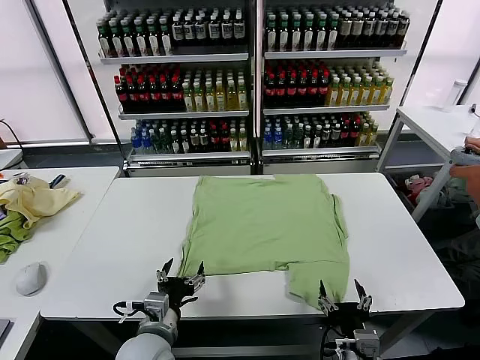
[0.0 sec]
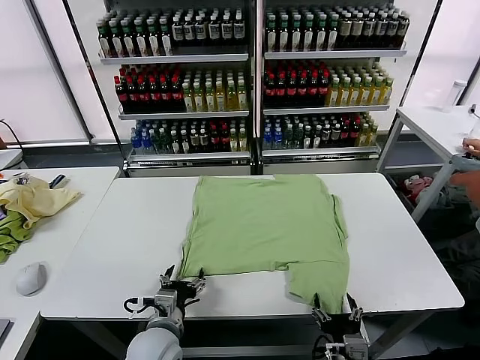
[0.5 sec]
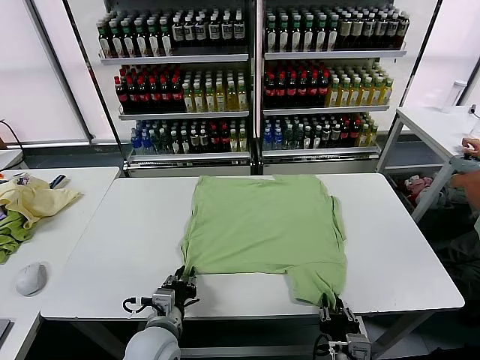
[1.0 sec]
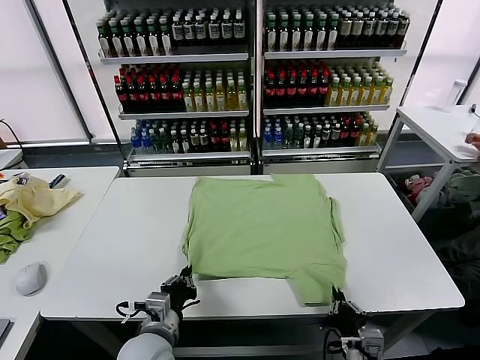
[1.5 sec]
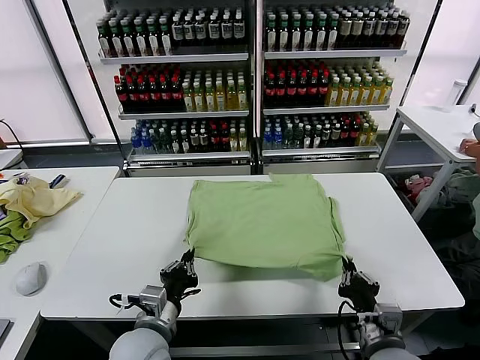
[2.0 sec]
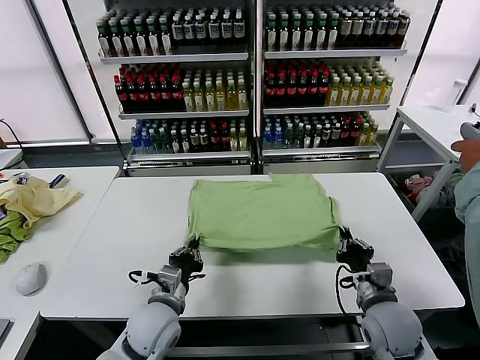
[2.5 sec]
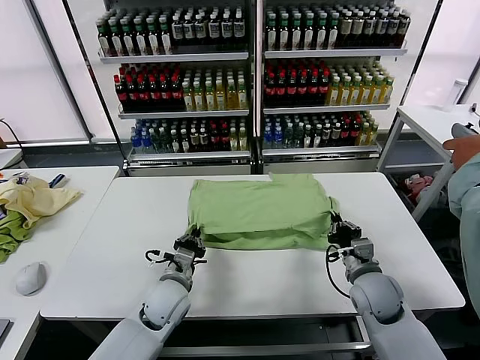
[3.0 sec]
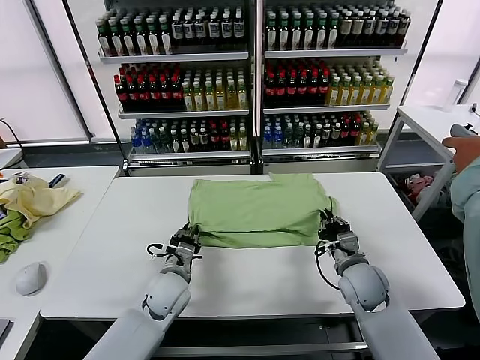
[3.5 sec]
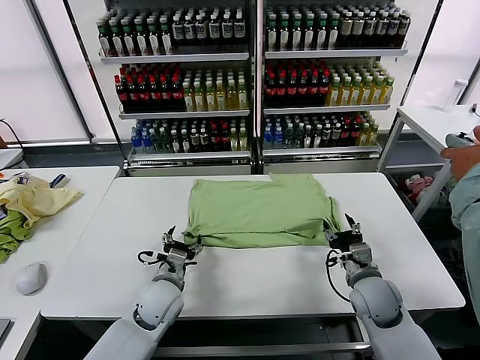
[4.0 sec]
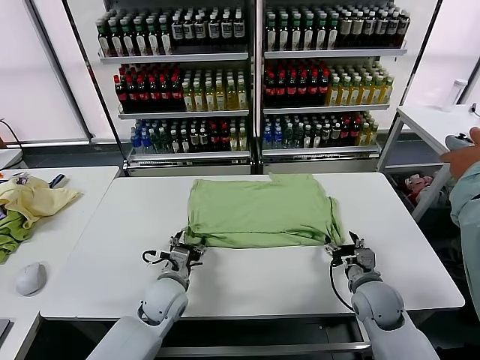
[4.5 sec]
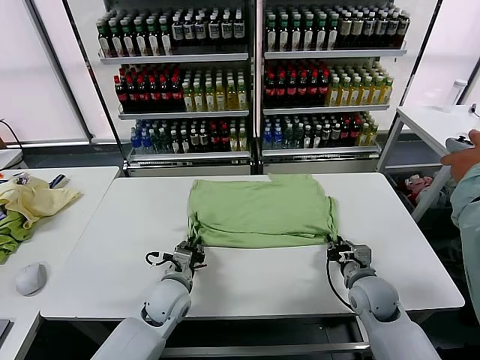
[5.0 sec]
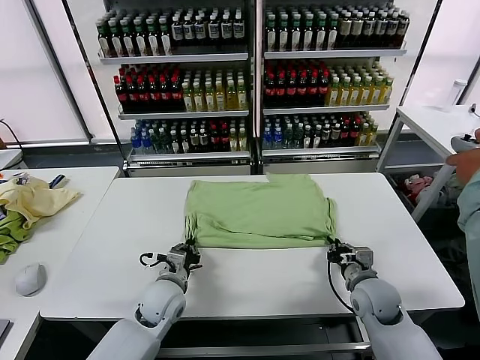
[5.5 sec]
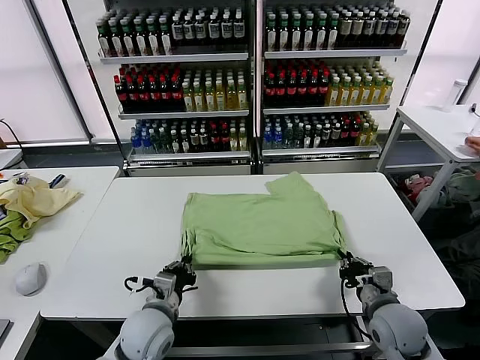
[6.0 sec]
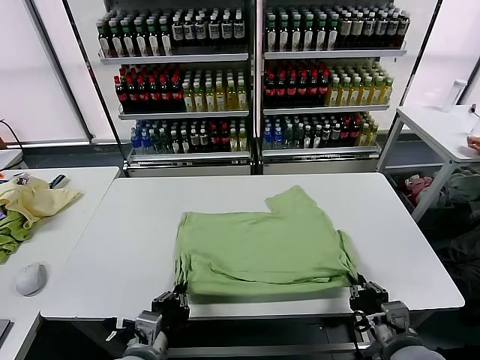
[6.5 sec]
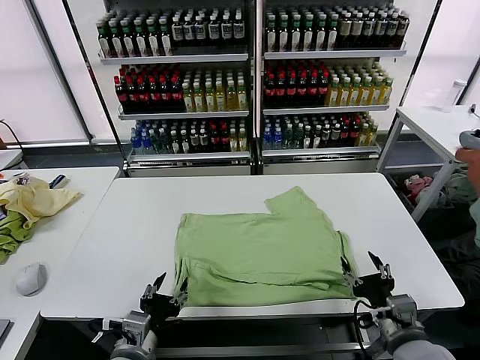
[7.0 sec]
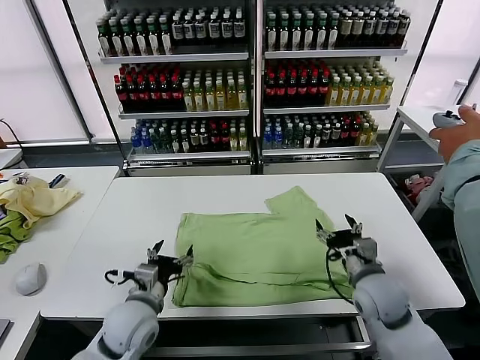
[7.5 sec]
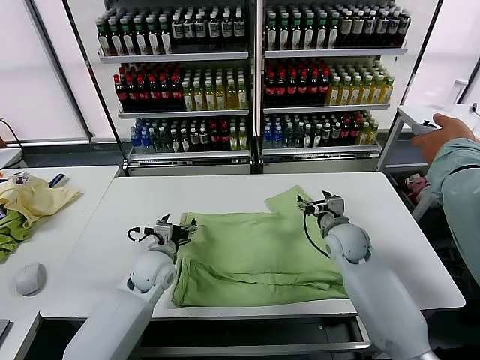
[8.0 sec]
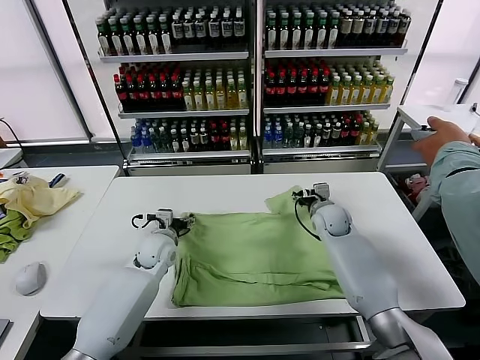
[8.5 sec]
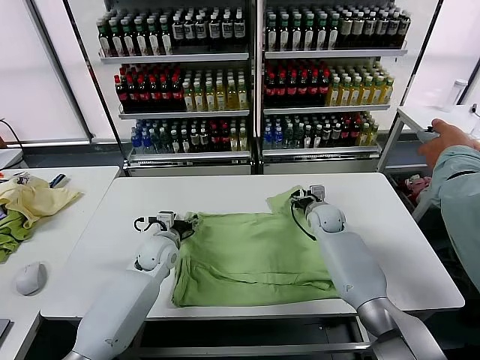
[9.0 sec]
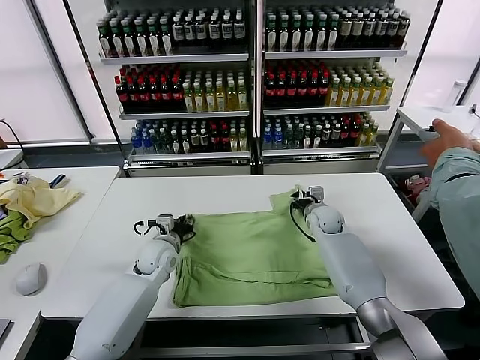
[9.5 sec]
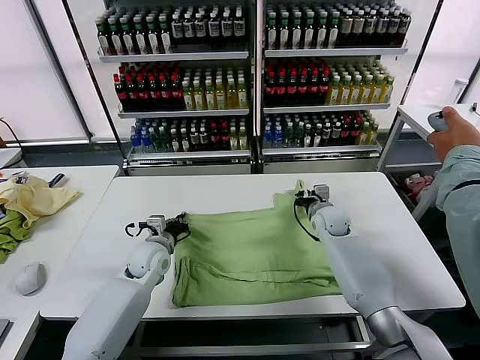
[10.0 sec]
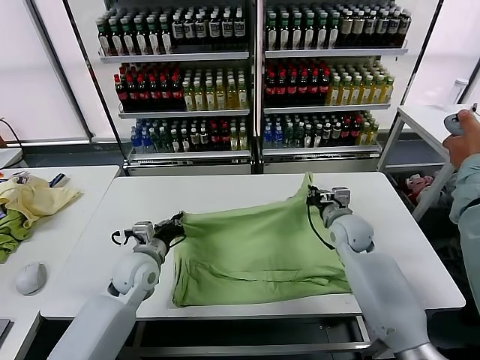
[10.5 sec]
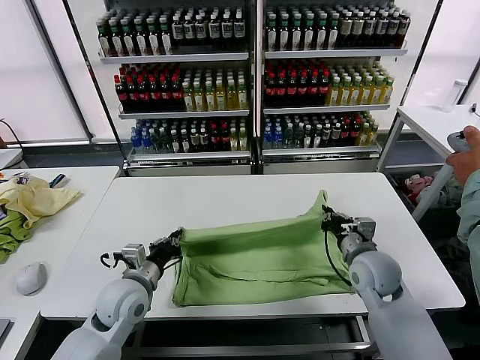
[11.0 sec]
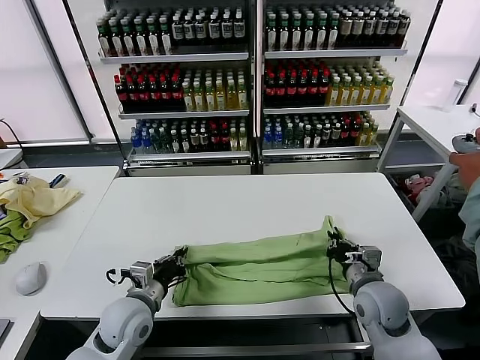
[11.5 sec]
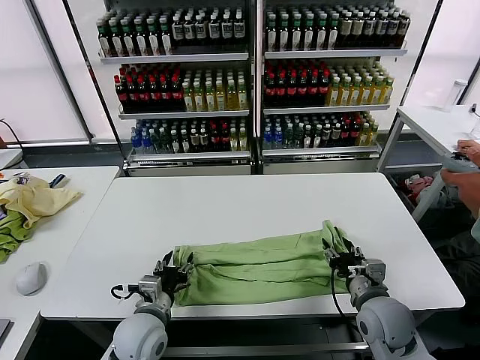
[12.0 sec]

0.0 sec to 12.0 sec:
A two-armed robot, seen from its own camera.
Task of the whole recording: fold and organize the clothes.
Step, 0.0 sec to 1.0 sec: use both grippers simultaneously to clamp the lower edge of the clothing fabric.
Step, 1.5 sec to 3.5 sec: use both grippers to drag the lower edge of the fabric forward and fold it over the upper edge.
Step, 4.5 sec to 6.5 sec: Drag the clothes downward with both gripper.
Step, 7.0 sec to 9.5 sec: use both grippers simultaneously to clamp the upper edge of the clothing fabric.
Step, 10.0 sec to 11.5 sec: use both grippers to drag the upper edge of the fabric backward and fold it over the lower edge.
2.0 sec to 4.0 sec: The right gripper moves forward, about 10 cm, and opens its fingers. The left gripper shifts about 15 cm forward and downward, and opens up.
4.0 sec to 6.0 sec: The grippers both shift backward by some 10 cm. The right gripper closes up. Meanwhile the left gripper closes.
6.0 sec to 8.0 sec: The right gripper is displaced forward by about 25 cm, and opens its fingers. Meanwhile the left gripper moves forward, about 15 cm, and opens up.
8.0 sec to 10.0 sec: The left gripper closes. The right gripper moves forward, about 5 cm, and closes up.
10.0 sec to 12.0 sec: Both grippers move backward, some 20 cm. The left gripper opens, while the right gripper opens up.

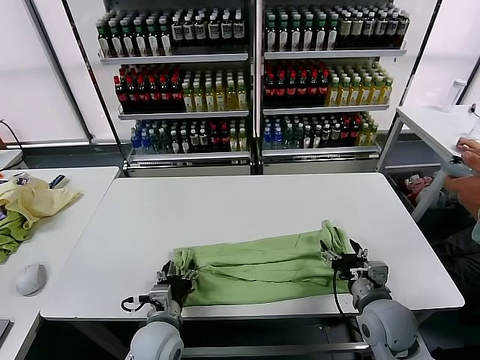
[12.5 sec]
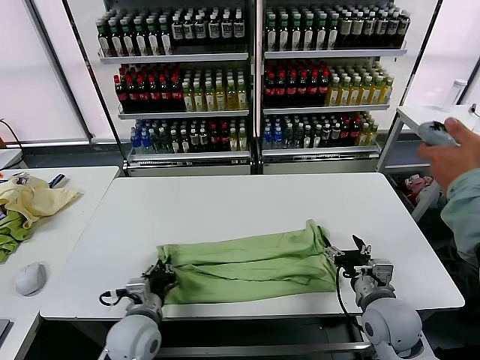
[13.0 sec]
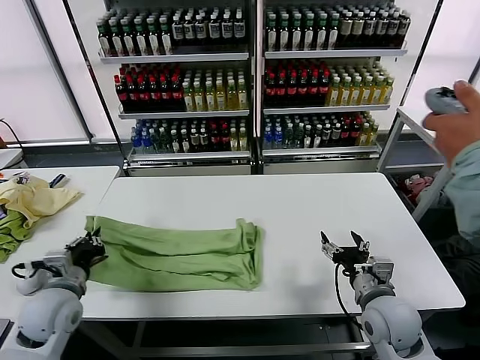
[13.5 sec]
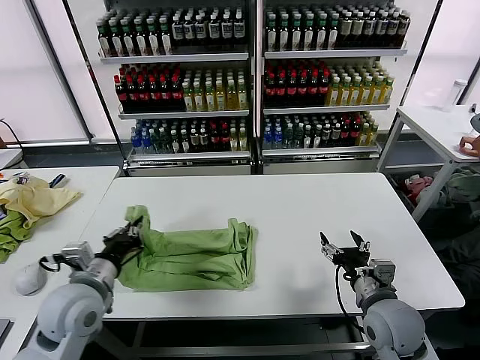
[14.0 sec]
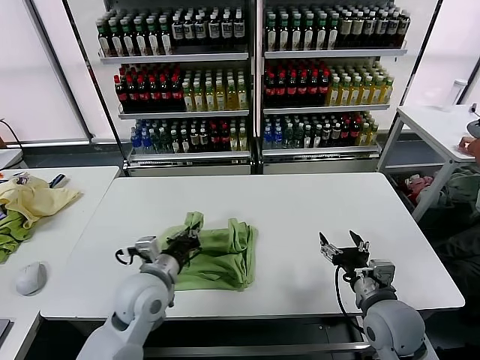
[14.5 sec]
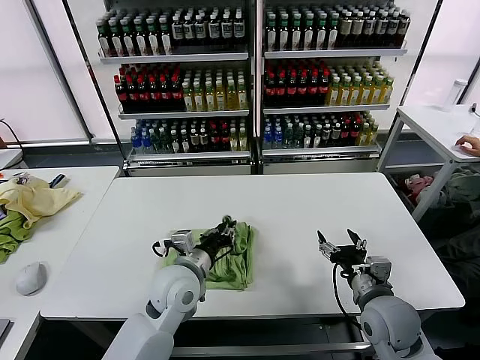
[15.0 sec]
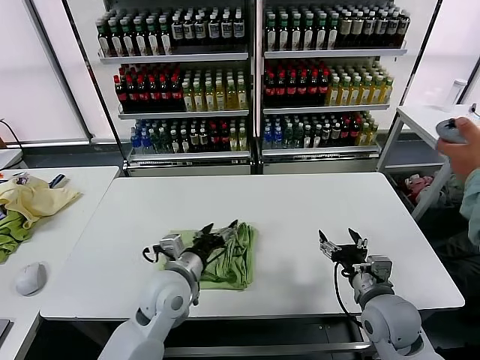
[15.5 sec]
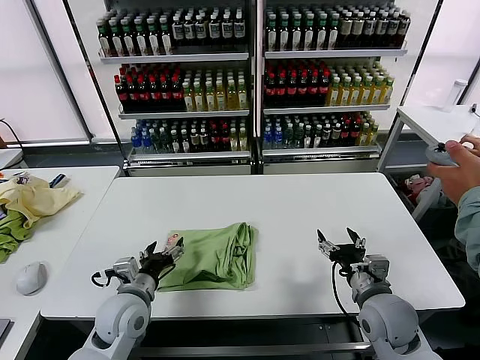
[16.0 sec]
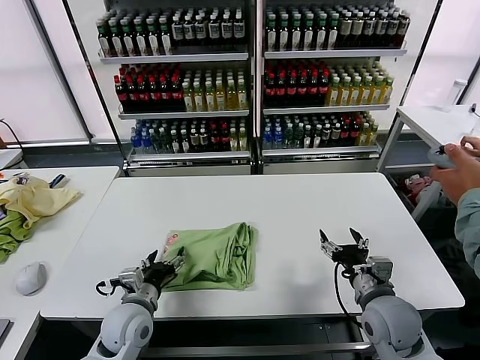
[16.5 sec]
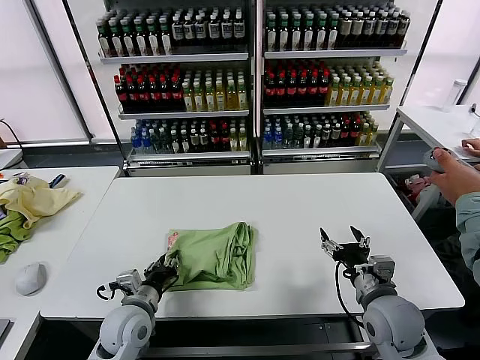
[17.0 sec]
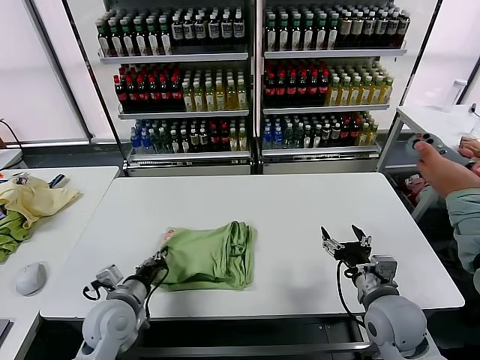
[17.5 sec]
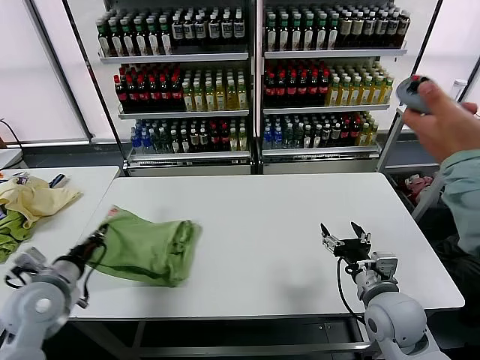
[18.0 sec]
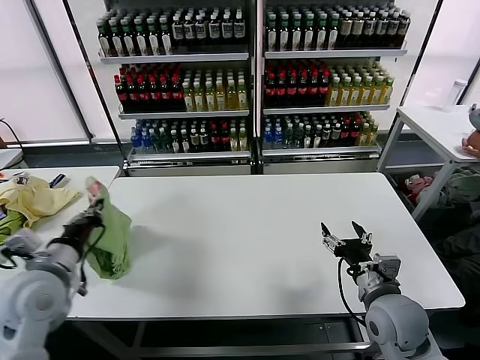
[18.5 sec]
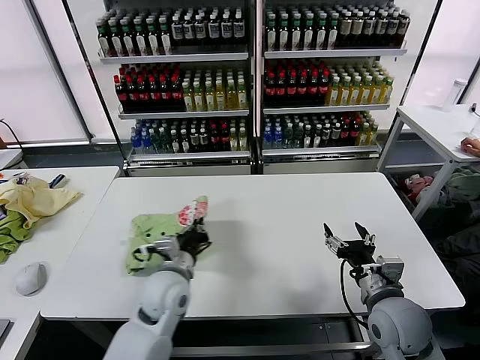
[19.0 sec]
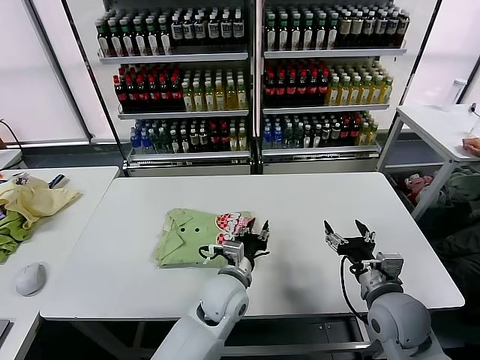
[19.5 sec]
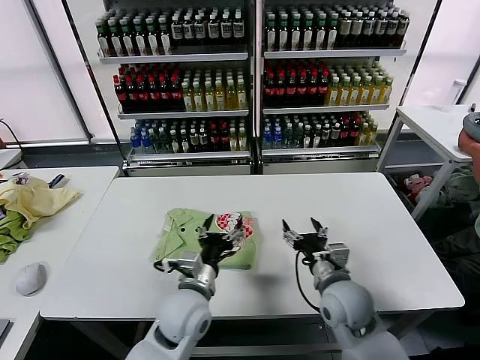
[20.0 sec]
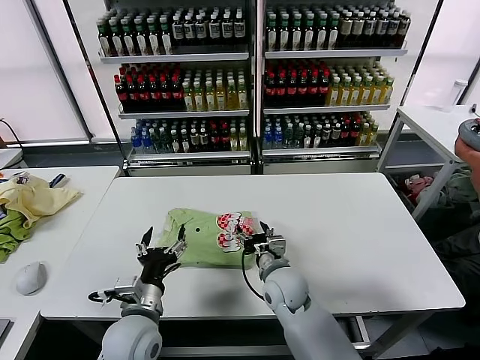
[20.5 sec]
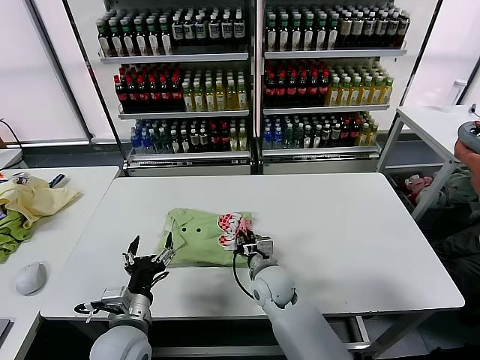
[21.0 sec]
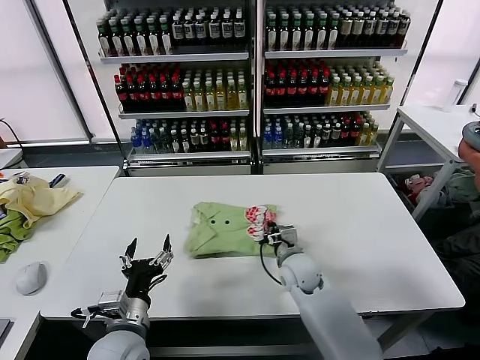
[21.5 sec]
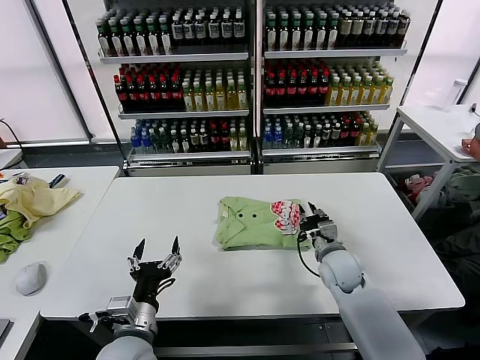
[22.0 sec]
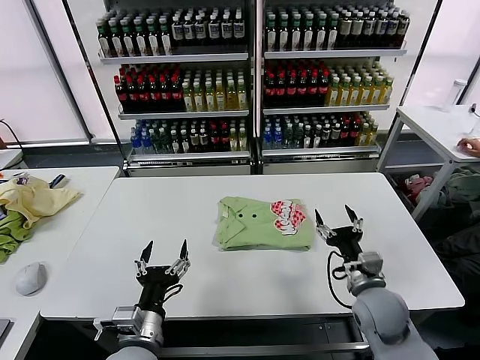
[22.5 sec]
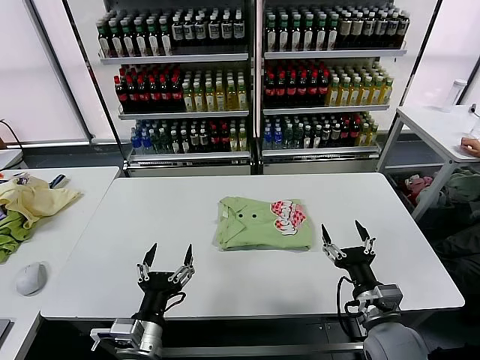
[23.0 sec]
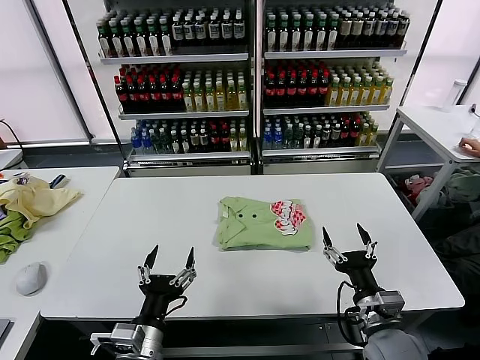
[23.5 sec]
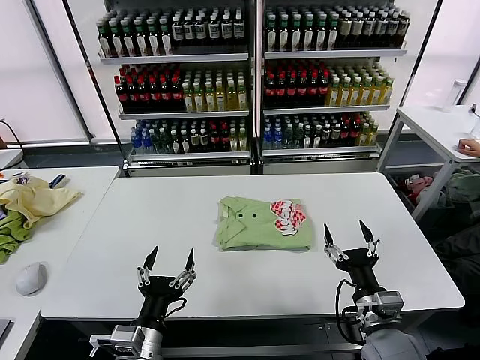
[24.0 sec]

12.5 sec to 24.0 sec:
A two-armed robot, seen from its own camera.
Task of the whole recording: fold and organize the clothes.
Step, 13.5 sec to 15.0 sec: use the left gripper to drag the left edge of the fabric to the left and folds it over the right edge.
Step, 15.5 sec to 19.0 sec: Flip the folded clothes over with left gripper.
Step, 20.0 sec to 22.0 sec: Drag the clothes to the center of the table.
12.5 sec to 14.5 sec: The left gripper is displaced upward and forward by some 10 cm, travels to the left and back again, some 20 cm each way, and closes up.
14.5 sec to 16.5 sec: The left gripper moves downward, some 10 cm, and opens.
16.5 sec to 18.5 sec: The left gripper travels upward and to the left by roughly 20 cm, and closes its fingers.
18.5 sec to 20.0 sec: The right gripper shifts about 10 cm to the left; the left gripper goes some 25 cm to the right and downward, and opens.
20.0 sec to 22.0 sec: The left gripper goes approximately 15 cm to the left and backward; the right gripper shifts approximately 10 cm forward, goes to the left and returns, some 15 cm each way, and closes.
22.0 sec to 24.0 sec: The right gripper travels backward by roughly 20 cm, and opens its fingers. Meanwhile the left gripper is displaced backward by some 5 cm.
